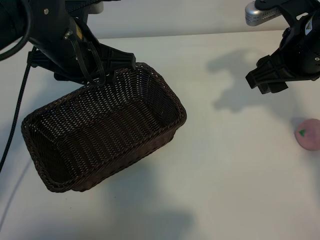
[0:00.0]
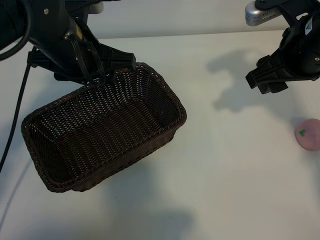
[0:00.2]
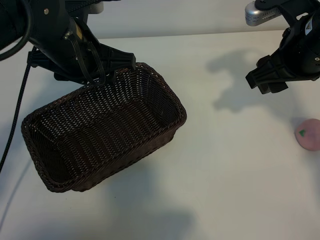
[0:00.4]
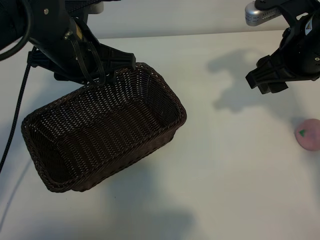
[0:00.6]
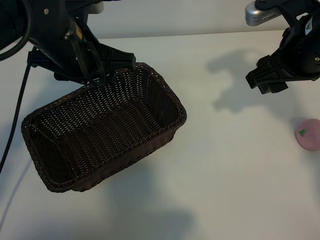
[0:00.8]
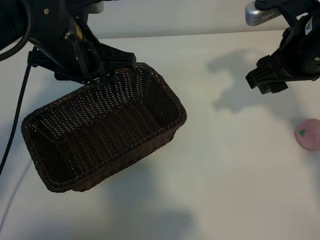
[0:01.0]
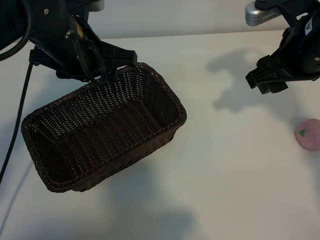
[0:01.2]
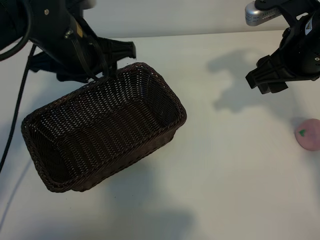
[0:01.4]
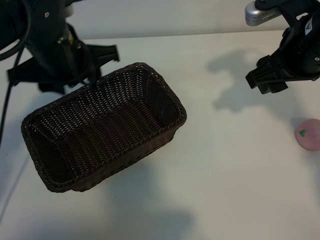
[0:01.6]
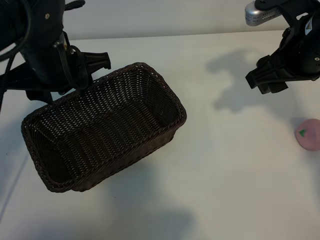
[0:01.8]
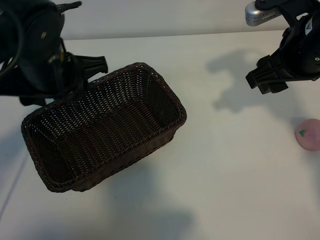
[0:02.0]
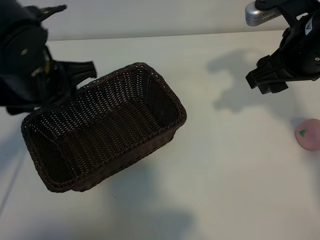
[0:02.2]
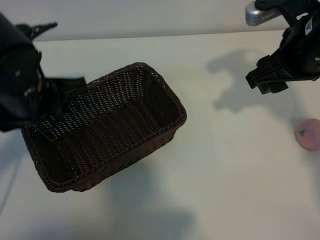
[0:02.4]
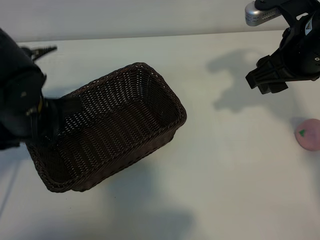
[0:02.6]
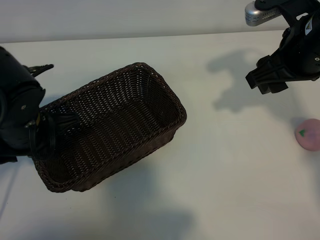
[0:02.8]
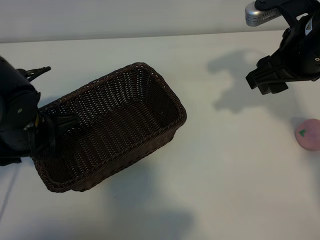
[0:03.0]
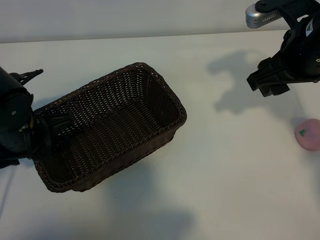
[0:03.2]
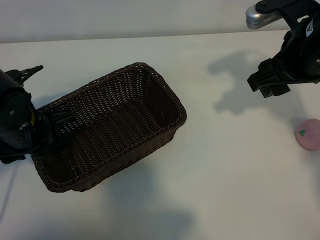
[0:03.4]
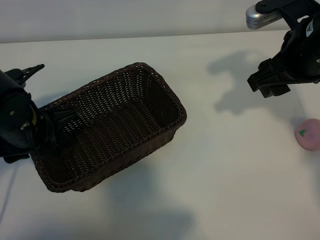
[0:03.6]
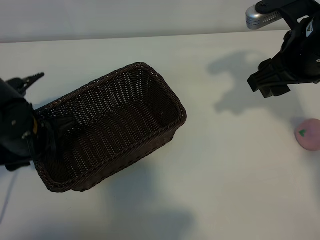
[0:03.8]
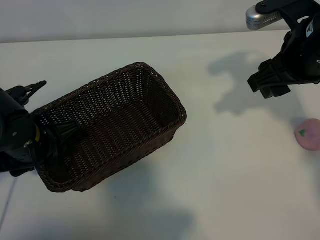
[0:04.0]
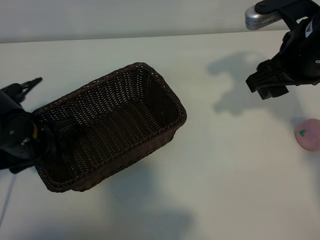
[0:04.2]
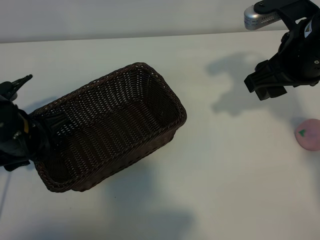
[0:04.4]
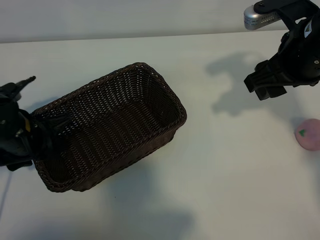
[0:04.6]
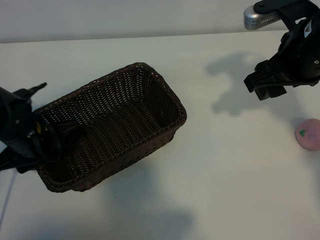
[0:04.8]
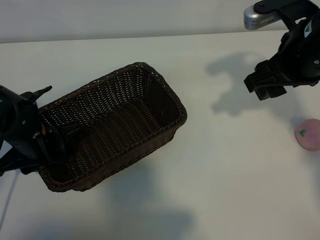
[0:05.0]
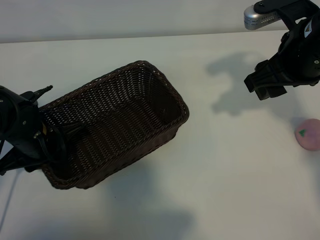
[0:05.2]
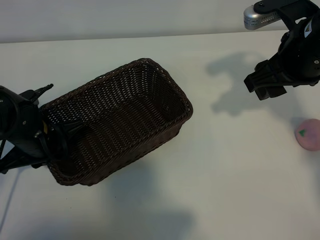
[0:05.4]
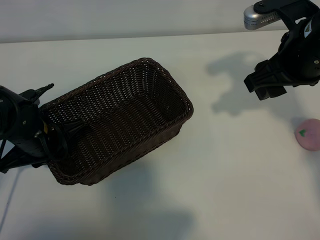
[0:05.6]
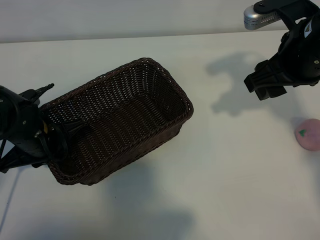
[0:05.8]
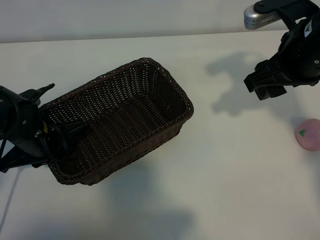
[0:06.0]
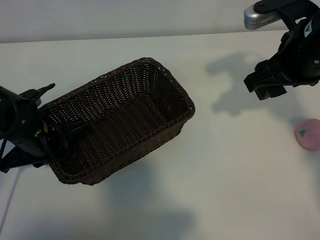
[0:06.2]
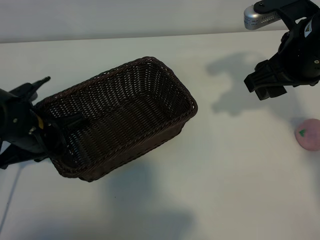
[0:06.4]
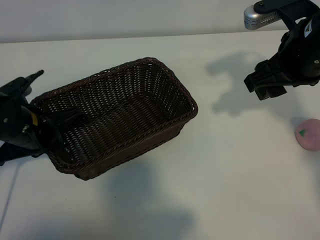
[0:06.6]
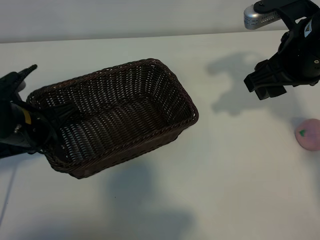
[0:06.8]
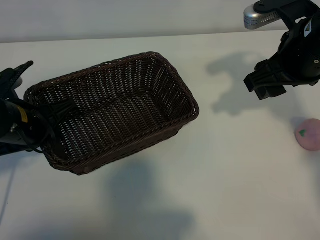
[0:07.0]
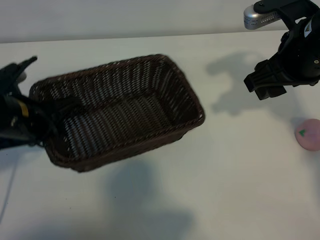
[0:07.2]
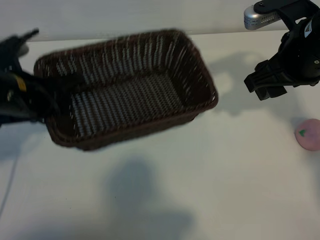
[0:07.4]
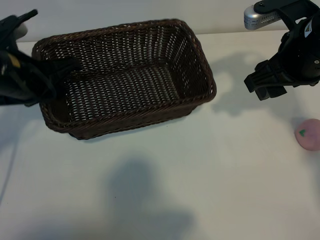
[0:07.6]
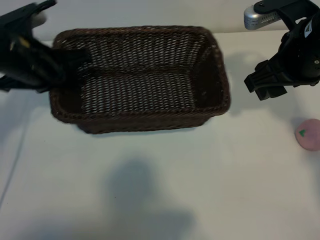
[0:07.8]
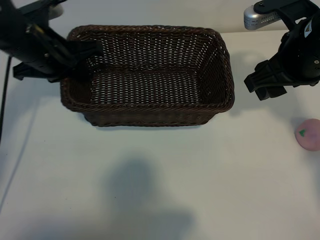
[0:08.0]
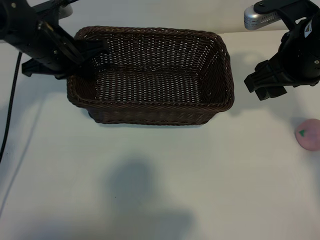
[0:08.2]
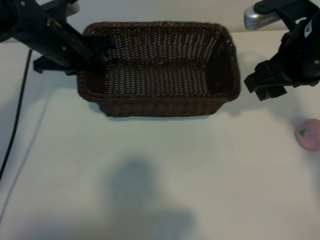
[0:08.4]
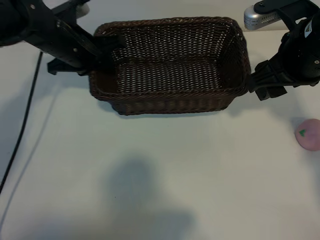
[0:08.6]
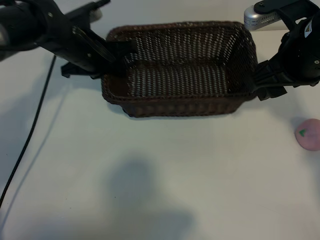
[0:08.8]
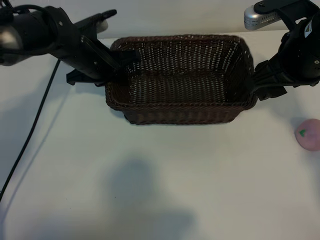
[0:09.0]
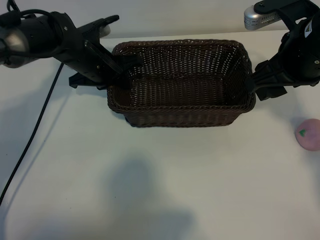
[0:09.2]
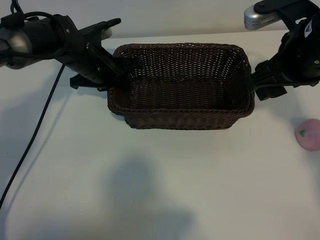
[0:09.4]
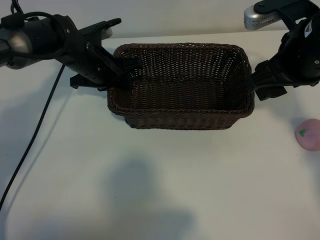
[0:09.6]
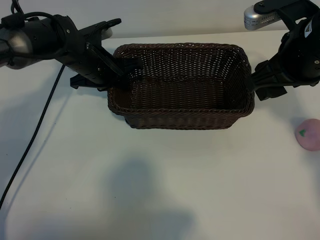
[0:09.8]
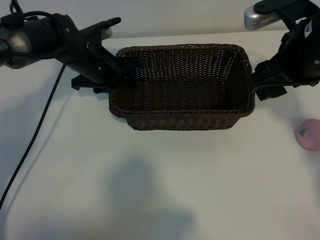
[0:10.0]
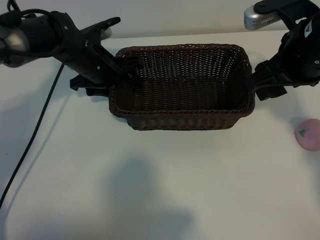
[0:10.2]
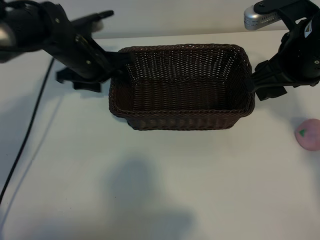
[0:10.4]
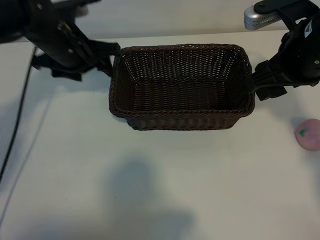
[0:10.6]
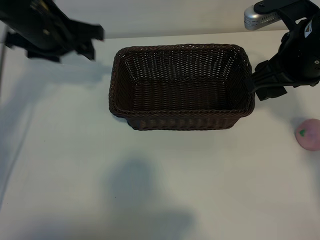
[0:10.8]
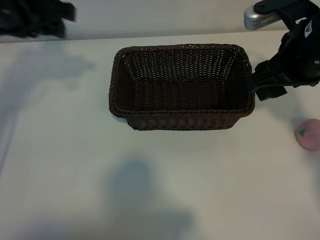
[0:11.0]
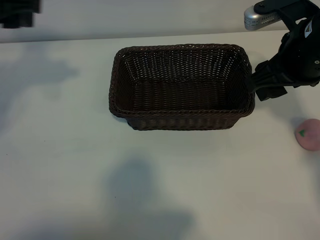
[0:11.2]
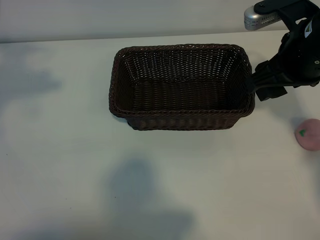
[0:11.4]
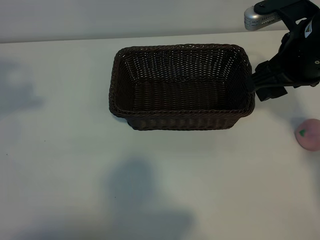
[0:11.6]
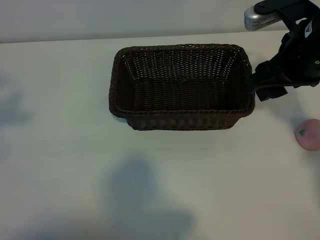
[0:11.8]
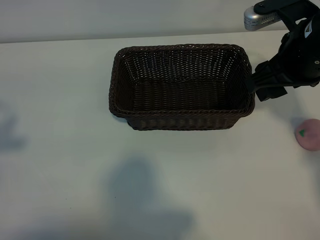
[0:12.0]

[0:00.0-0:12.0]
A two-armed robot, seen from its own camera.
Task of the whole recording: pick up the peach and put it into the basket.
Step, 0:01.0 to 0:05.4: Grasp the basket with left gripper.
Step, 0:05.8 to 0:10.2: Place the basket in the center of view with left gripper.

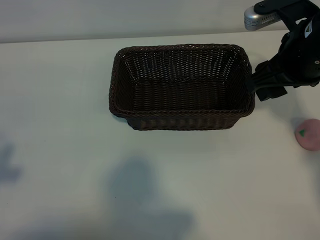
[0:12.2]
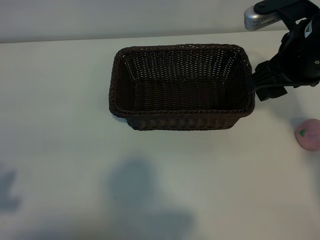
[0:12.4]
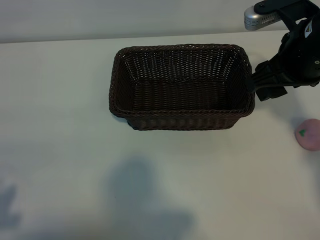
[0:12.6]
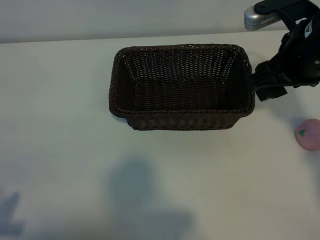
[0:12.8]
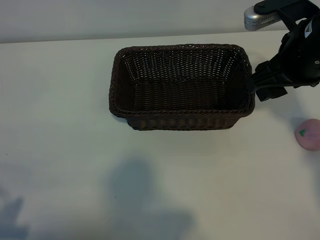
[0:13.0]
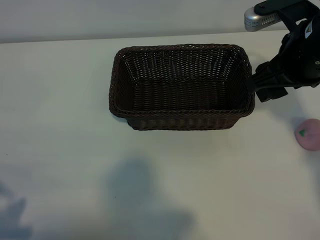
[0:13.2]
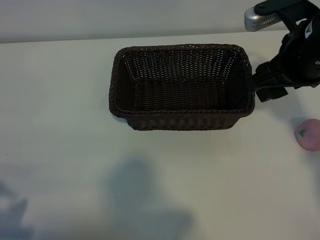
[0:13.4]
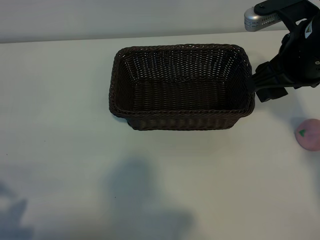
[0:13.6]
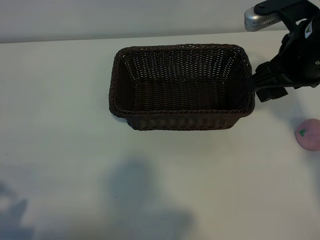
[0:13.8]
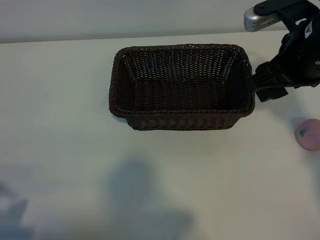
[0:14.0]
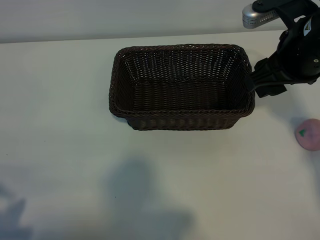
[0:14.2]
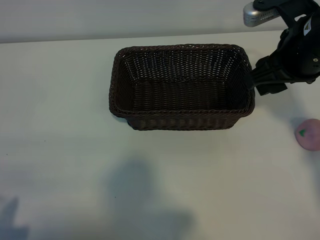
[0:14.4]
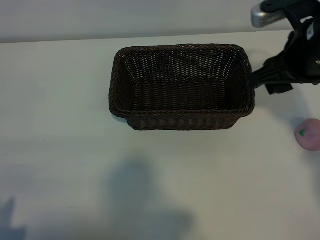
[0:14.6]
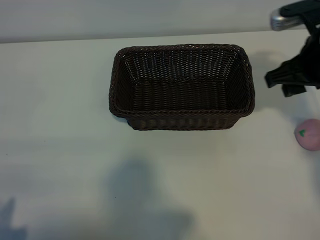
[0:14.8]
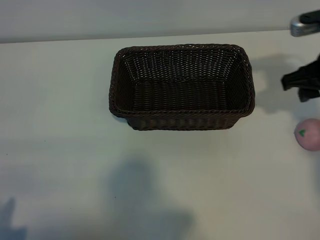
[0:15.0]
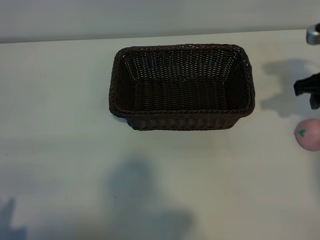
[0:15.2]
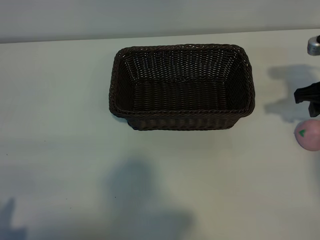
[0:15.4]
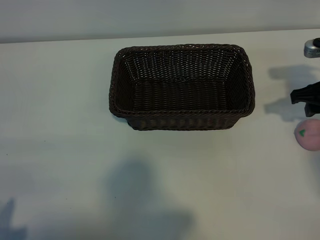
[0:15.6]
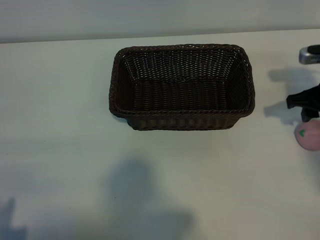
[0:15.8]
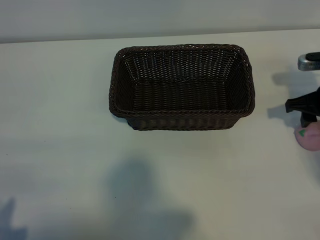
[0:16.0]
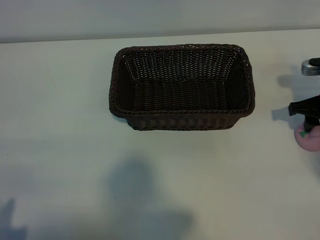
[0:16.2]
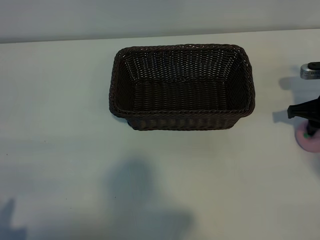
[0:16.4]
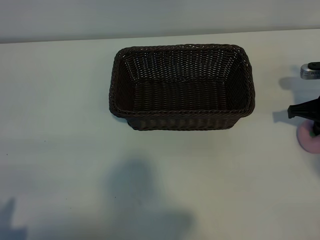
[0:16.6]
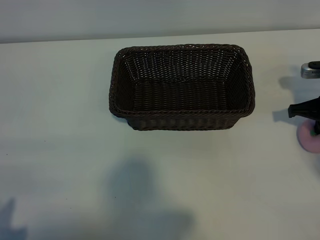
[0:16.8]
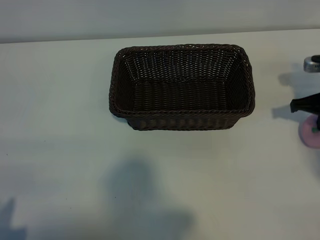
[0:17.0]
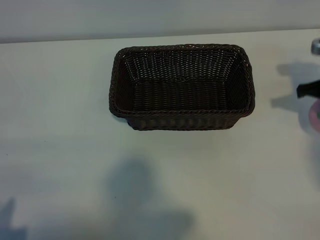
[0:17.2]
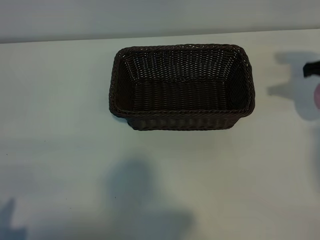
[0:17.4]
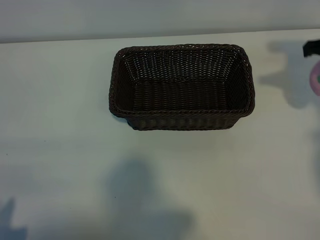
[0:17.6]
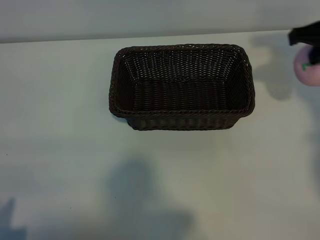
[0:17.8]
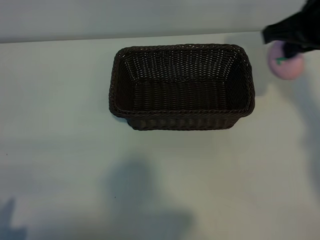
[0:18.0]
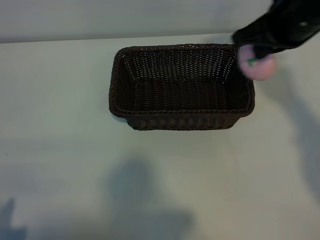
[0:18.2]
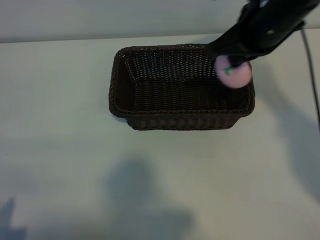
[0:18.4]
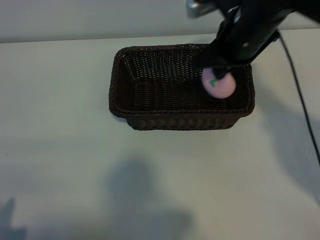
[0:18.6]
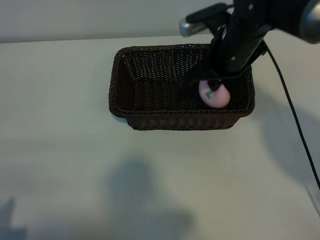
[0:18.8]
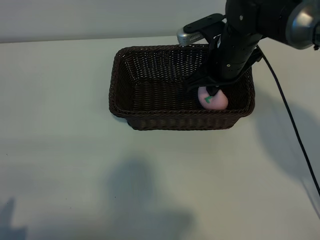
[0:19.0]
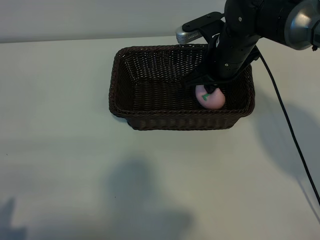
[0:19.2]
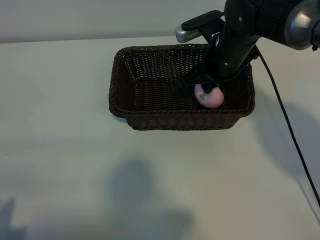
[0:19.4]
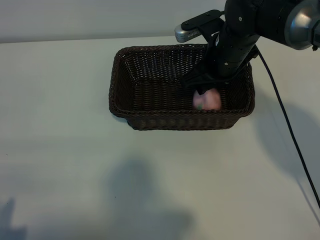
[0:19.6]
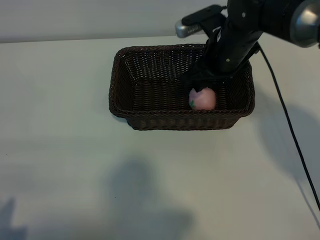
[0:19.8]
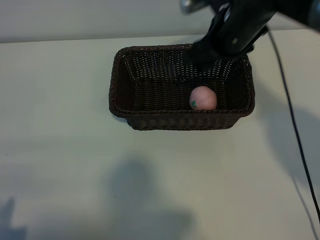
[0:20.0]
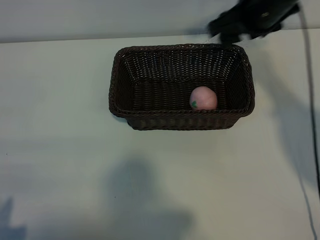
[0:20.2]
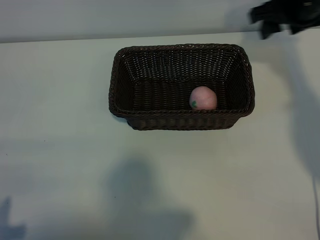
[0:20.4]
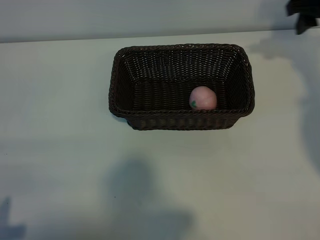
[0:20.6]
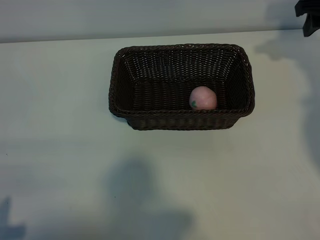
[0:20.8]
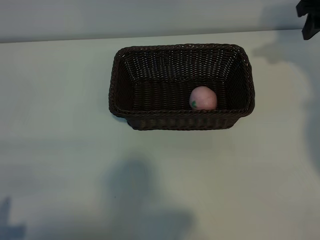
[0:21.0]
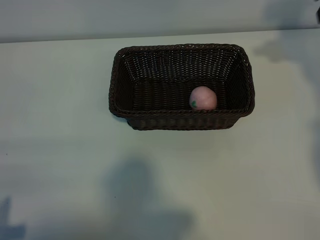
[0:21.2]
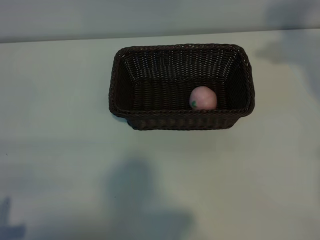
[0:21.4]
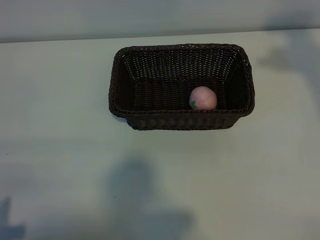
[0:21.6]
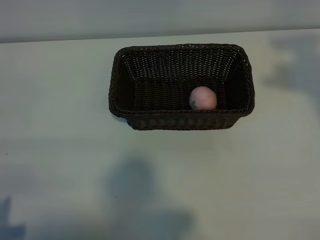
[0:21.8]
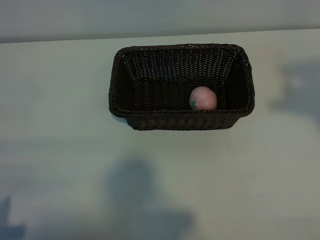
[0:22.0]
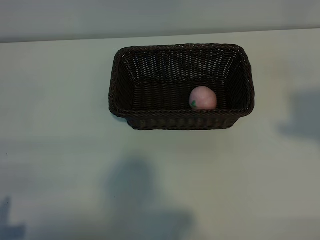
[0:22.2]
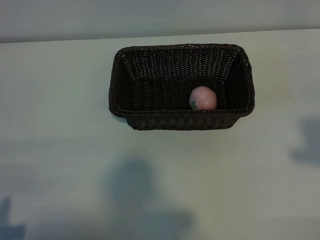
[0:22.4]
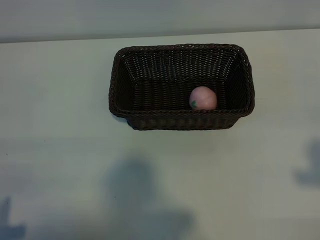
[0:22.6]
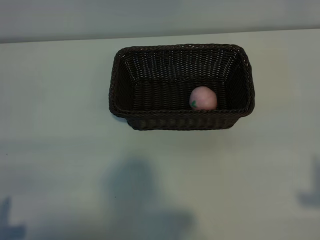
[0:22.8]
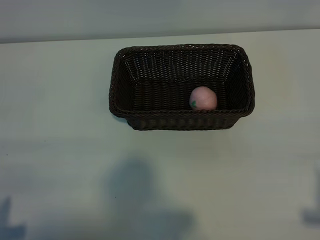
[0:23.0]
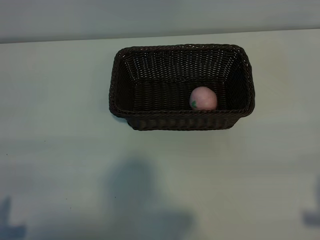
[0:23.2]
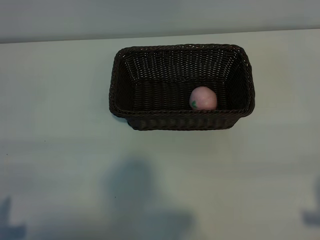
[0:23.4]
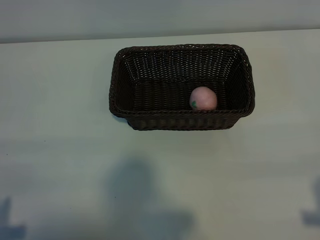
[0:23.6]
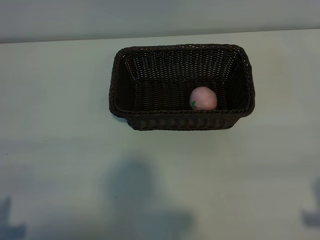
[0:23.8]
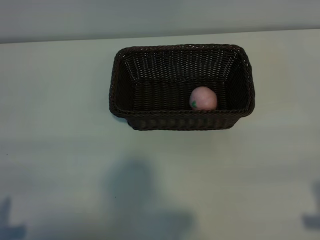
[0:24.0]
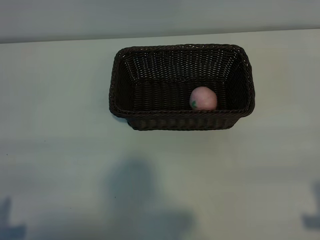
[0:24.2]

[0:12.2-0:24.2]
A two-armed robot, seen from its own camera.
Task of the whole recording: pick up the peach and put it into the basket.
Step, 0:12.2 to 0:16.6: Grasp the peach with right gripper.
Step, 0:16.8 to 0:19.6: Place the peach in the basket with right gripper.
